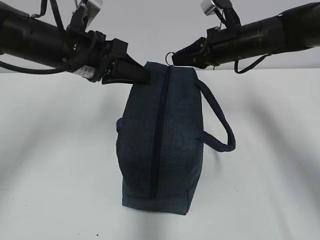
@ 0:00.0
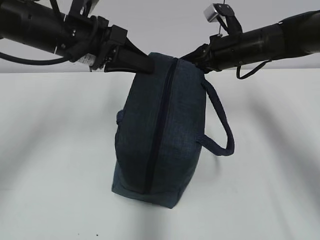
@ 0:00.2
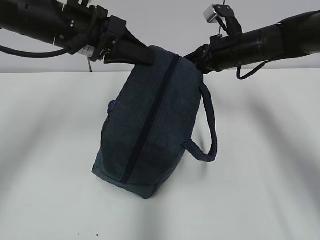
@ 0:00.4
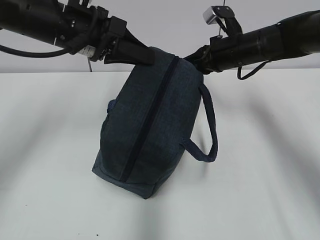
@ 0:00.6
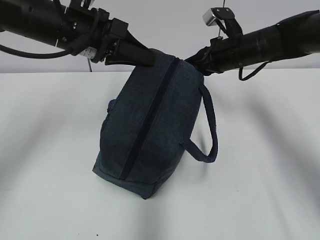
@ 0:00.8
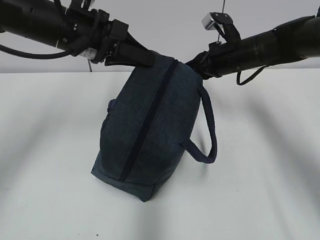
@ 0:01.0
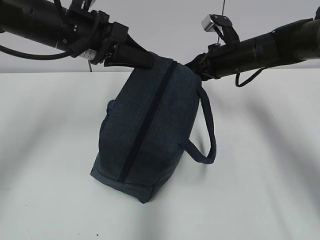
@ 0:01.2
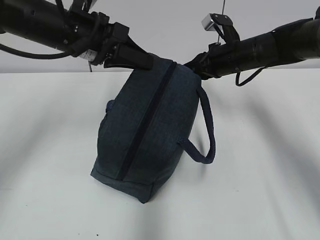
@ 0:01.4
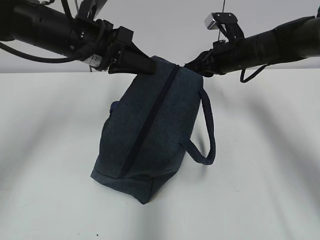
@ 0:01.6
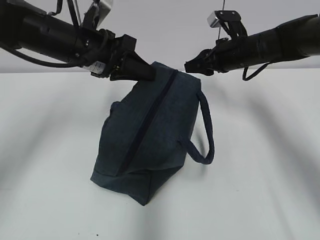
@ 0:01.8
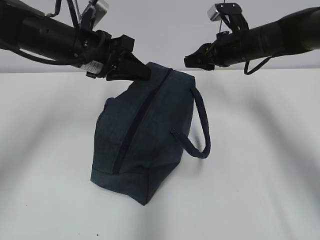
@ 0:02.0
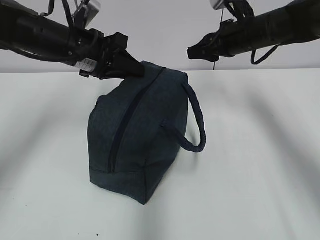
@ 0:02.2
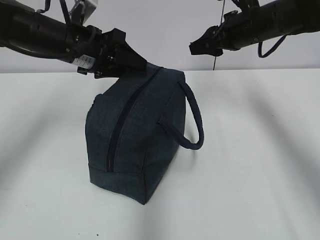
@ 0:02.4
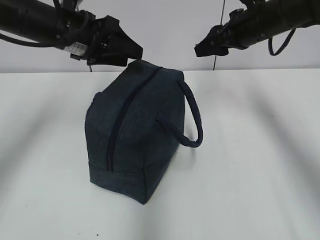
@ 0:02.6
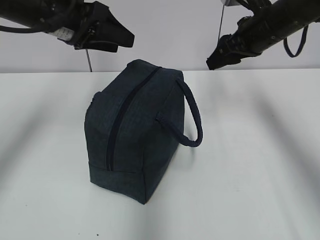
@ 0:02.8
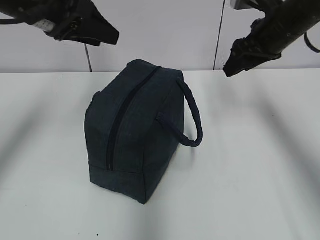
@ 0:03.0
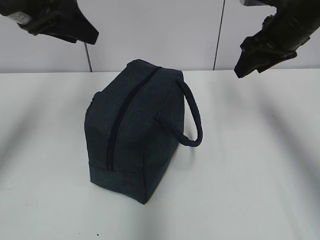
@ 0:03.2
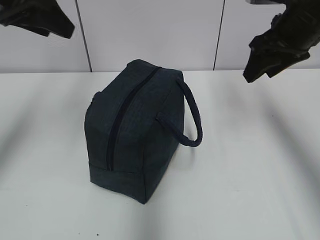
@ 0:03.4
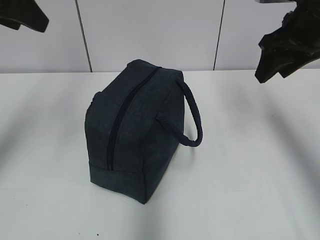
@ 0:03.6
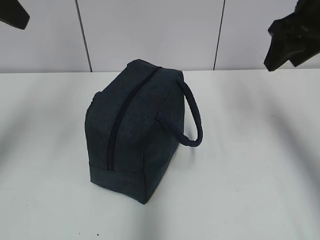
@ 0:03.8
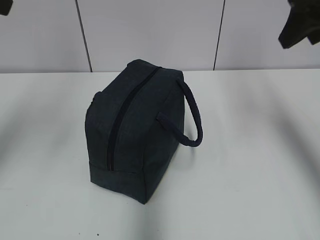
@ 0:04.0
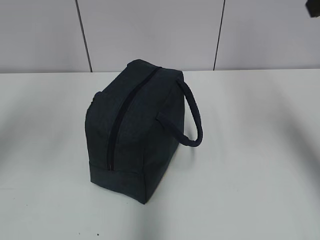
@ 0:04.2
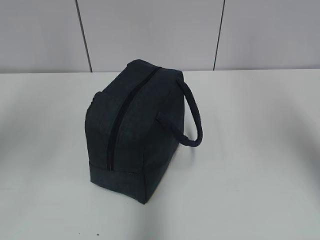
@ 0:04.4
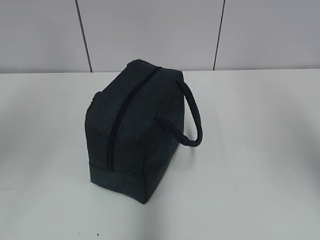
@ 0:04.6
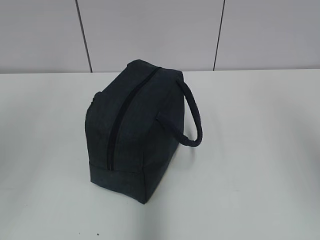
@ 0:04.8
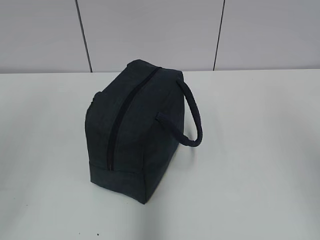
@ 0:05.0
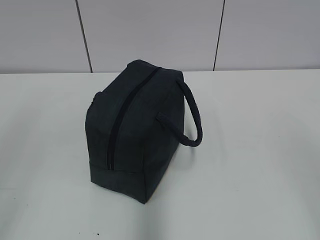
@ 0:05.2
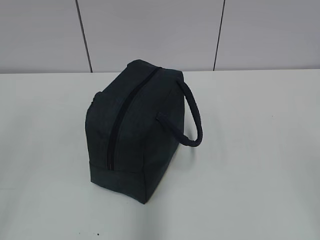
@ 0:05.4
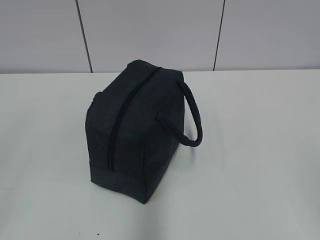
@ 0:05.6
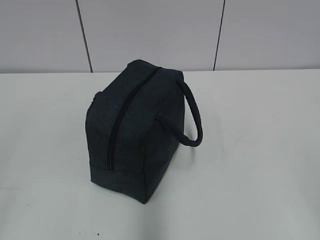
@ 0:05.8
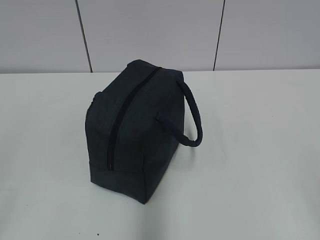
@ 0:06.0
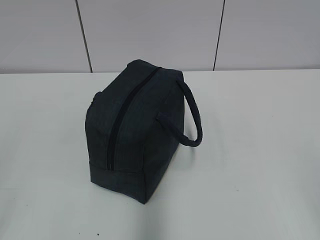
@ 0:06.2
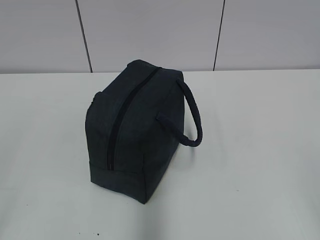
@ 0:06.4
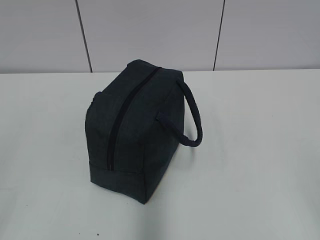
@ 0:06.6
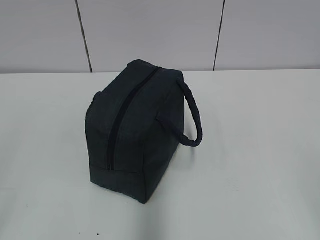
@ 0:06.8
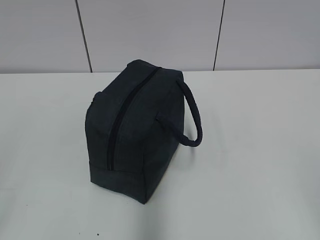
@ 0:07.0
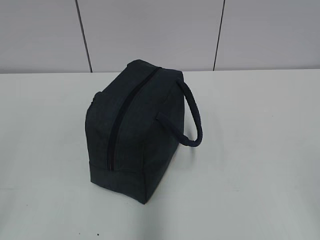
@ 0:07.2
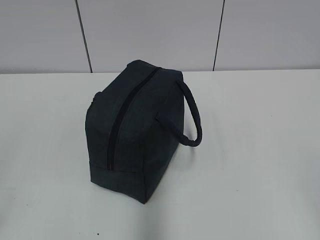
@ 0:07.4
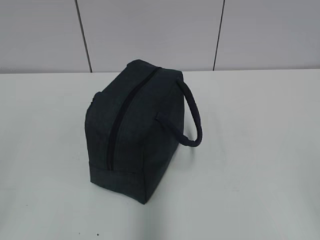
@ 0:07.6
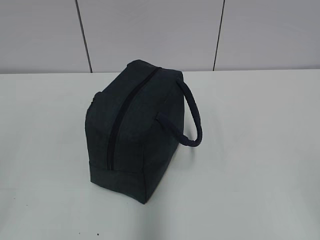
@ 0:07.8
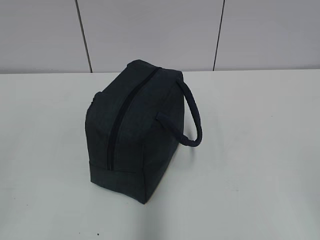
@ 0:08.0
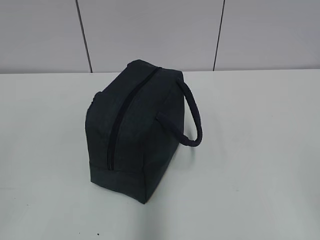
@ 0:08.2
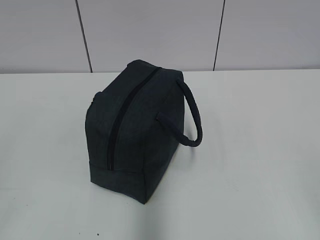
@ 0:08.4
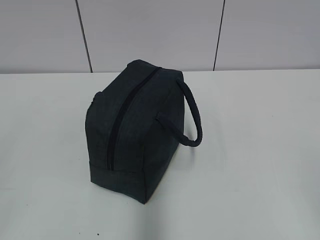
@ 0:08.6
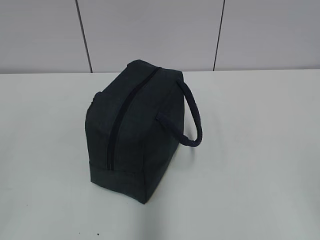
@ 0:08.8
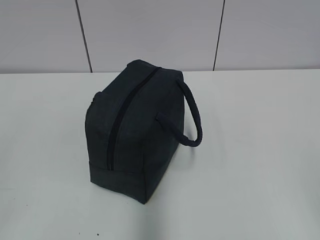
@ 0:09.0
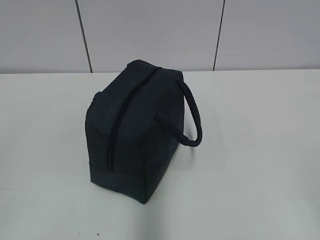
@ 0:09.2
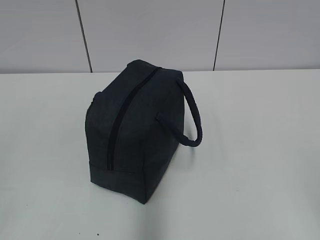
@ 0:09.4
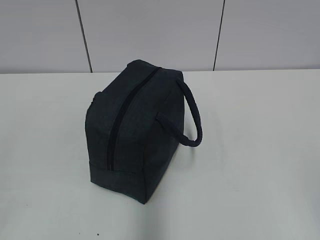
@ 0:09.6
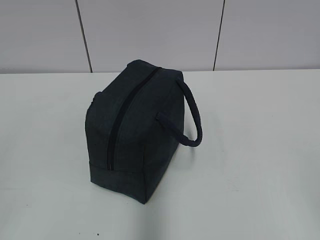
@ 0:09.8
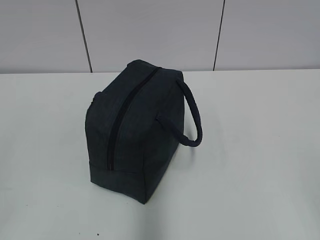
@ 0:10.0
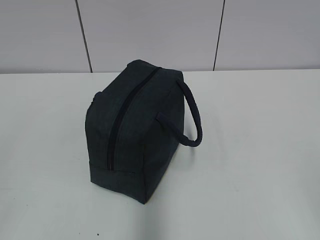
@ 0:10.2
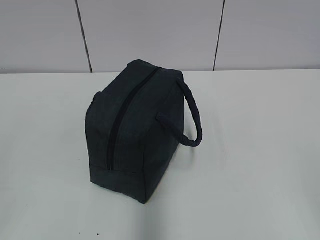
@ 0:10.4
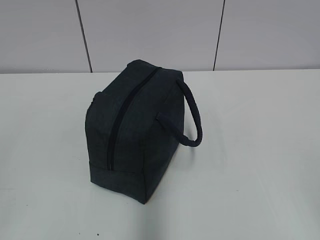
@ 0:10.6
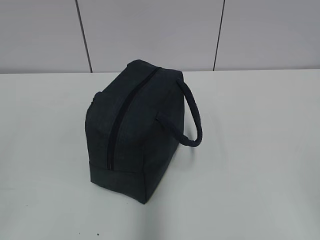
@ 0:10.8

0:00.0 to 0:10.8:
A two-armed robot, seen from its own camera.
Step, 0:01.6 to 0:02.2: Grab the lunch bag with your left hand.
0:01.6 to 0:03.0: The left gripper shifts some 10 cm upward and to the left, and opens its fingers. Meanwhile the right gripper shifts about 10 cm upward and backward, and opens.
0:03.0 to 0:04.6: The left gripper moves backward, upward and to the left, about 25 cm; the right gripper heads backward and upward, covering about 35 cm.
0:06.2 to 0:07.8: Neither gripper changes place.
0:09.2 to 0:10.8: Both grippers stay put.

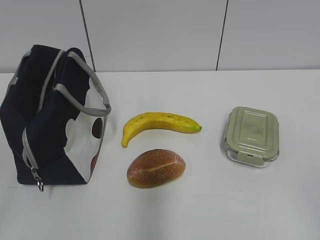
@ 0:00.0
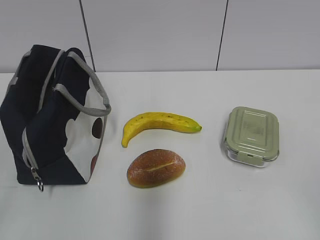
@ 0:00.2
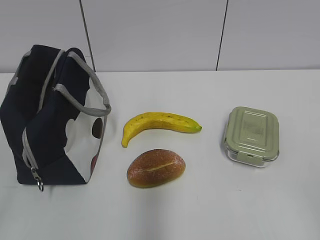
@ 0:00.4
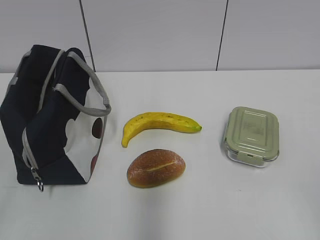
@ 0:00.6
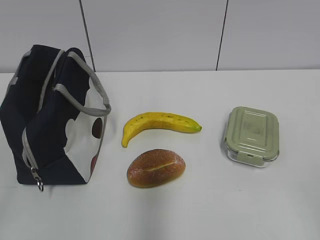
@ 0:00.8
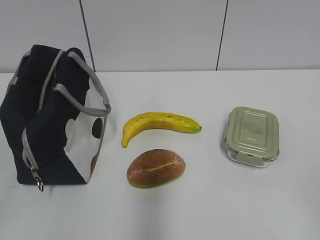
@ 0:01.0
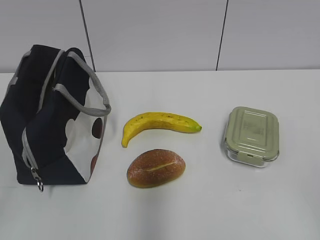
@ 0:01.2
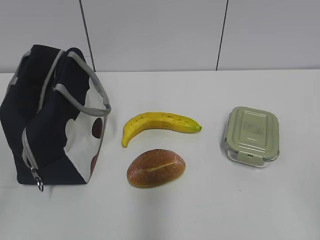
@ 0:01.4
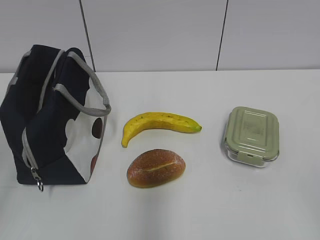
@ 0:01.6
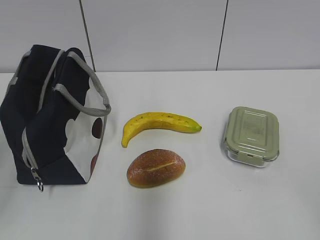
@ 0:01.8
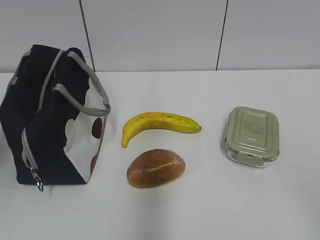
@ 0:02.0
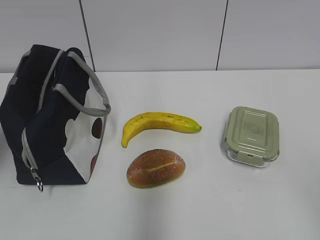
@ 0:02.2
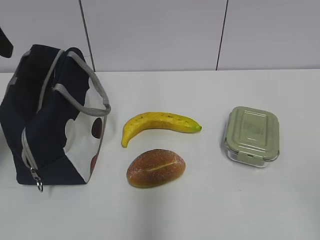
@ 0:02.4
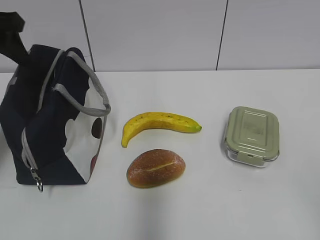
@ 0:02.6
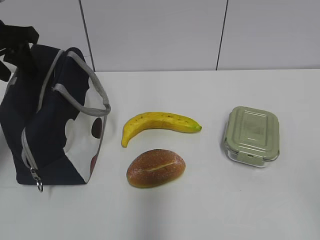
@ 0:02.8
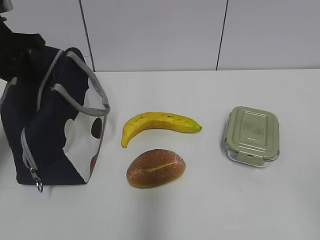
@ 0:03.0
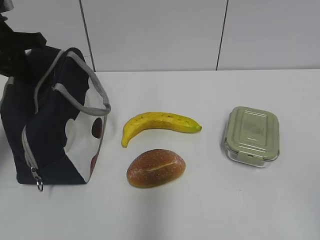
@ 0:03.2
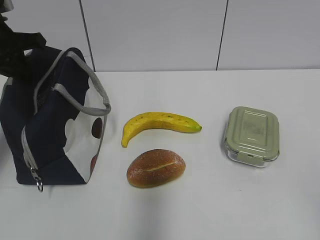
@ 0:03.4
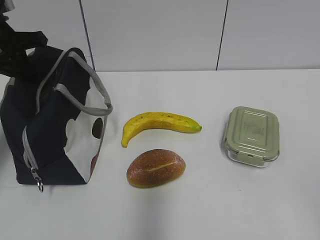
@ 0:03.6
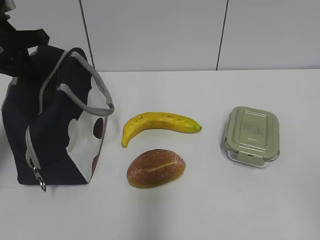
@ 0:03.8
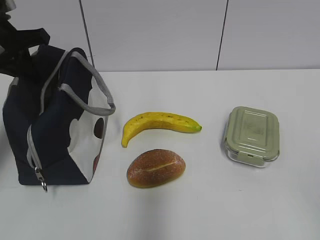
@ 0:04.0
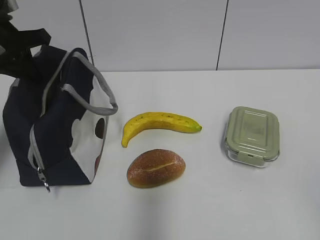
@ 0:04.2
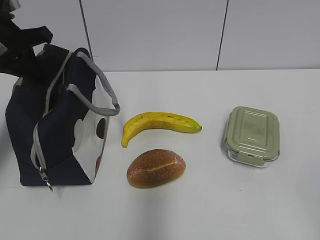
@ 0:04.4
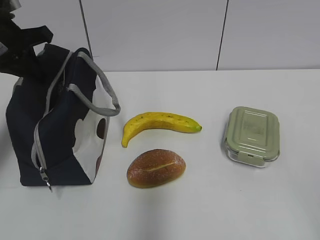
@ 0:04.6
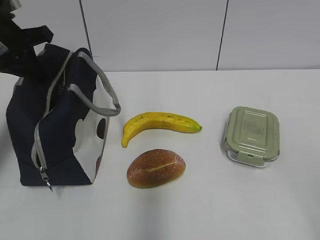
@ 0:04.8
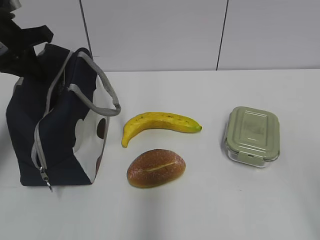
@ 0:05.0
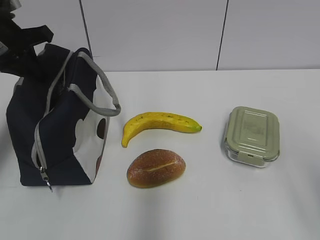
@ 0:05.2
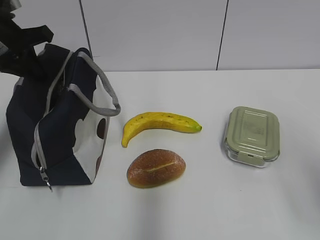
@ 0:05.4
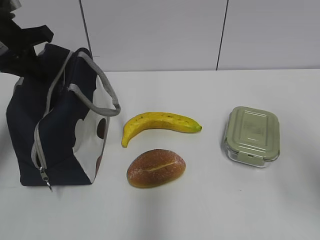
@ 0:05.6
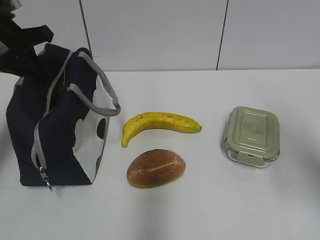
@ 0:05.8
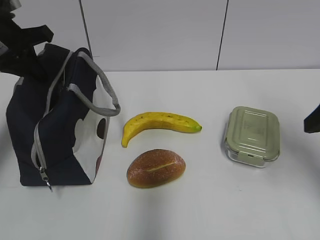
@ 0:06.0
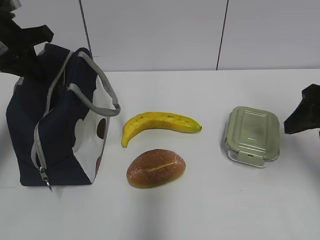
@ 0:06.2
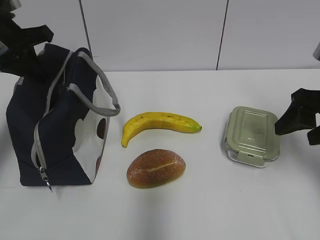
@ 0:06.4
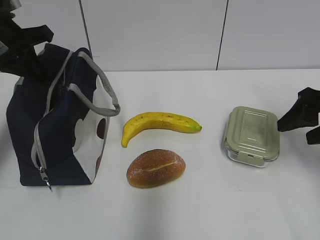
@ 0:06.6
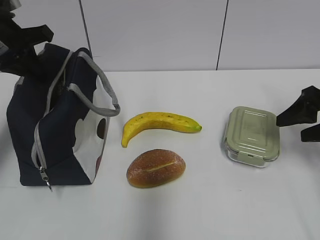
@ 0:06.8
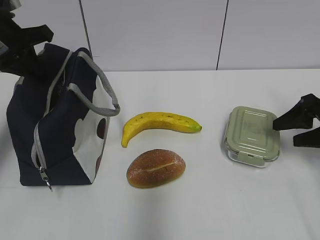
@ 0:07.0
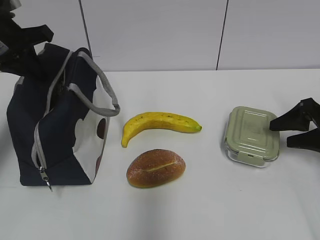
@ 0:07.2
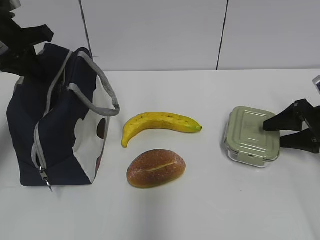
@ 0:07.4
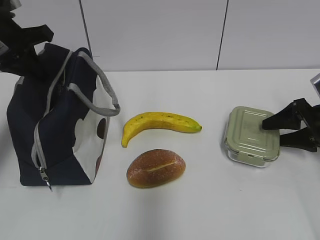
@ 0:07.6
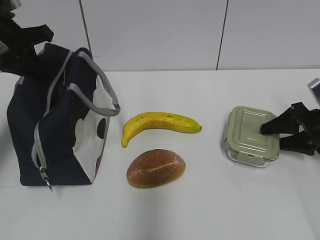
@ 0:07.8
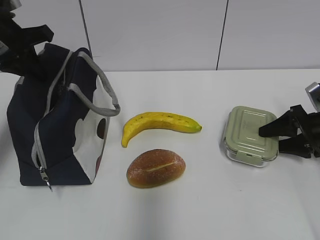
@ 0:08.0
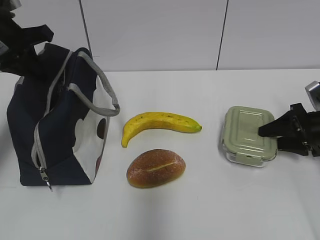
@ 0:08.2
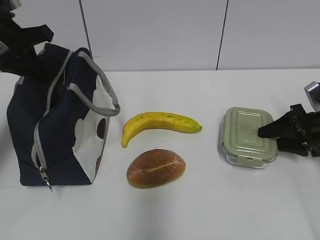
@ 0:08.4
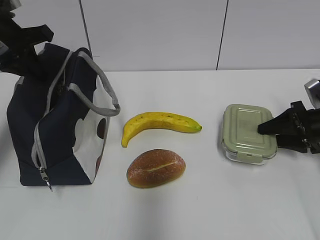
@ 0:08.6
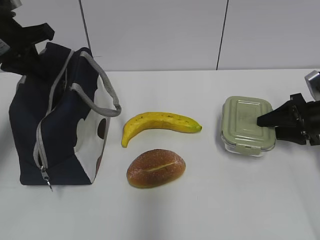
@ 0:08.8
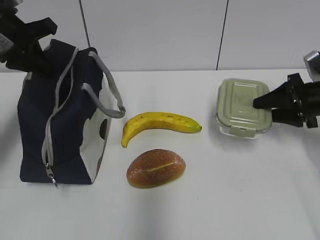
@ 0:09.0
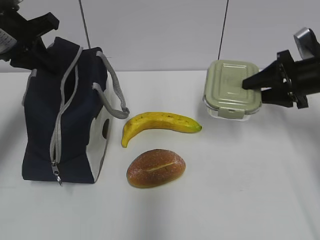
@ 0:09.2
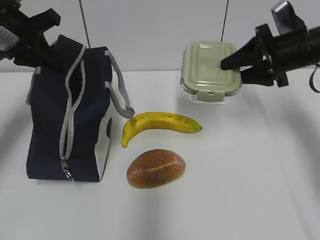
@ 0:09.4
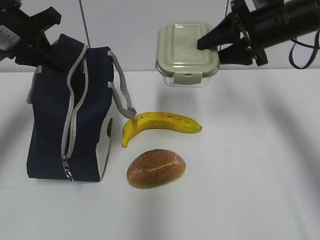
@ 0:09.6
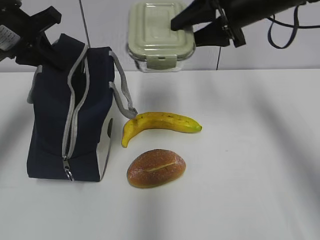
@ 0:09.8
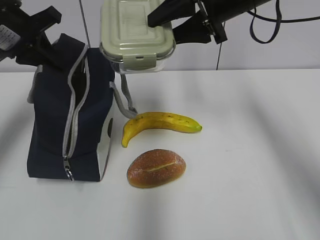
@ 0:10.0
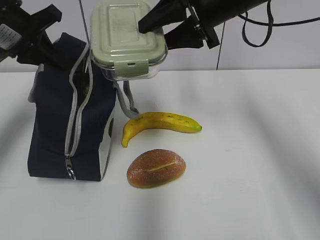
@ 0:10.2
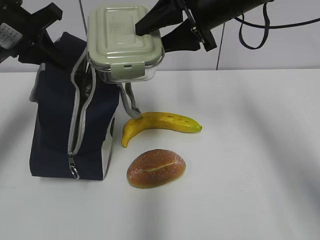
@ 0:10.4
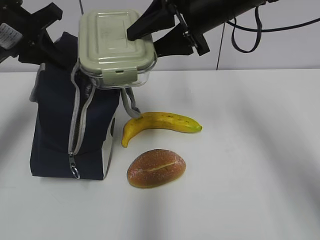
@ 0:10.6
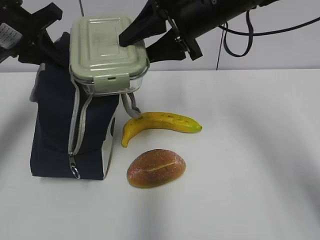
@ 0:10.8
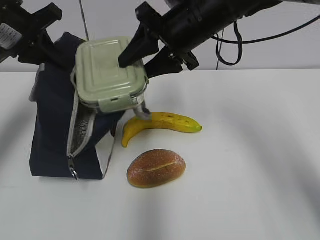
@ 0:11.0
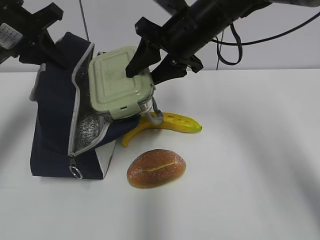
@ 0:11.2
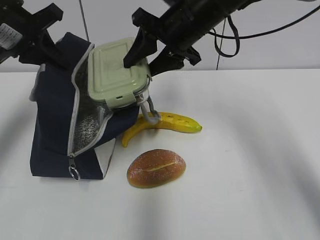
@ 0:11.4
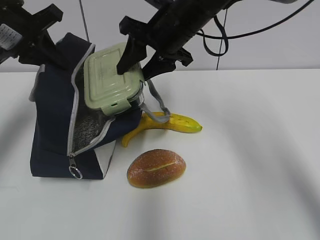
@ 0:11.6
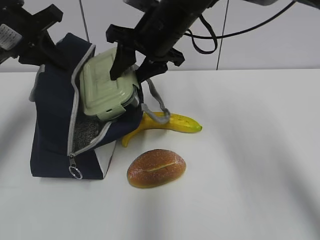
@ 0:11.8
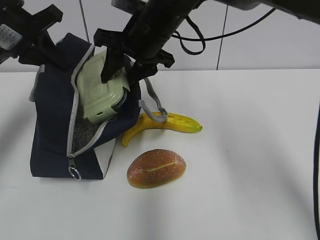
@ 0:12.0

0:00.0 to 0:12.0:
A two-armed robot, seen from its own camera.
Step, 0:00.0 to 0:08.2: Grab the lunch box with your right hand.
0:01.6 to 0:03.0: The left gripper is displaced forward by about 35 cm, and closes.
0:03.0 to 0:04.4: The left gripper closes.
0:04.4 to 0:06.0: The right gripper shifts about 25 cm forward.
0:06.0 to 0:07.6: The right gripper moves downward, forward and to the right, some 20 cm.
0:07.6 to 0:09.0: The grippers make only small movements.
0:09.0 to 0:10.4: The right gripper goes roughly 25 cm to the left and upward.
0:10.4 to 0:12.0: The right gripper moves to the left, about 10 cm.
